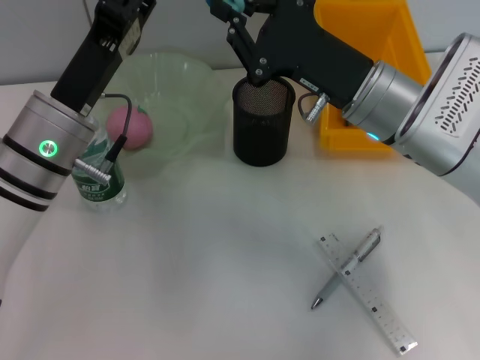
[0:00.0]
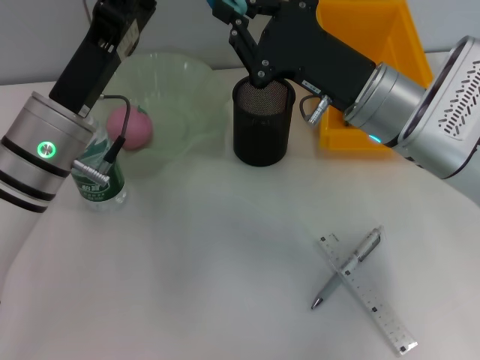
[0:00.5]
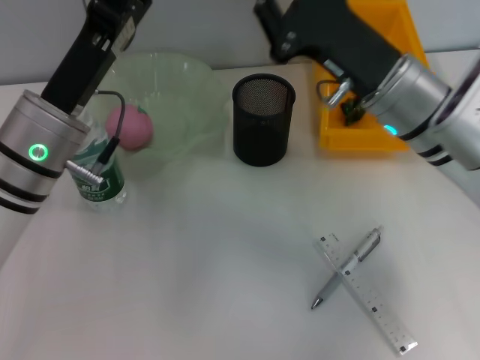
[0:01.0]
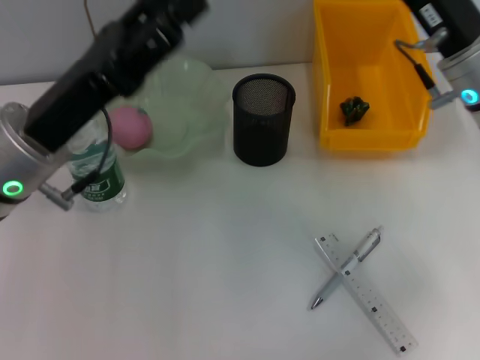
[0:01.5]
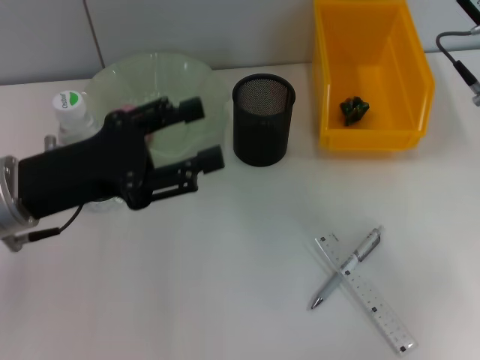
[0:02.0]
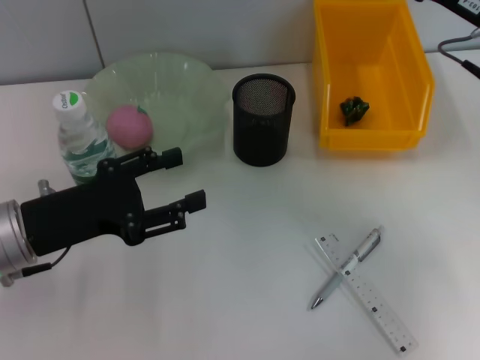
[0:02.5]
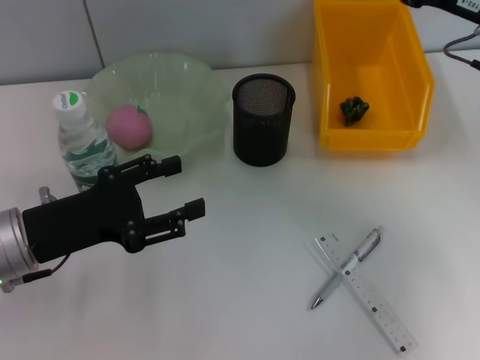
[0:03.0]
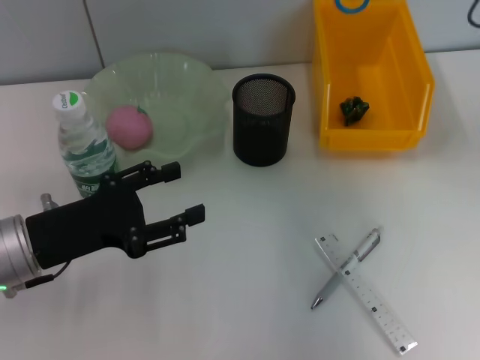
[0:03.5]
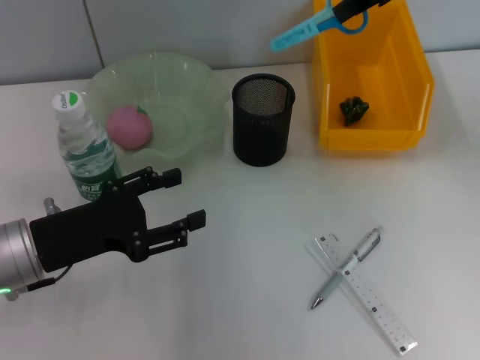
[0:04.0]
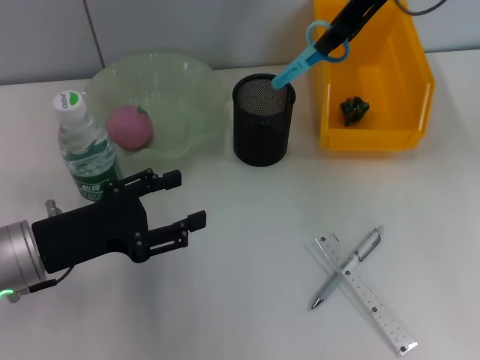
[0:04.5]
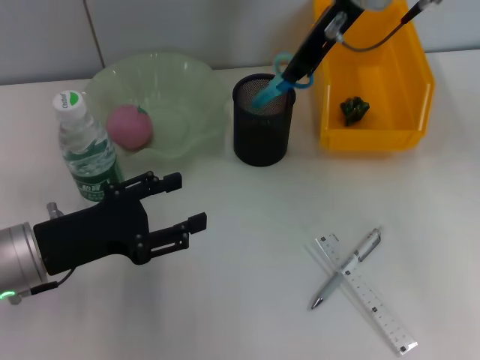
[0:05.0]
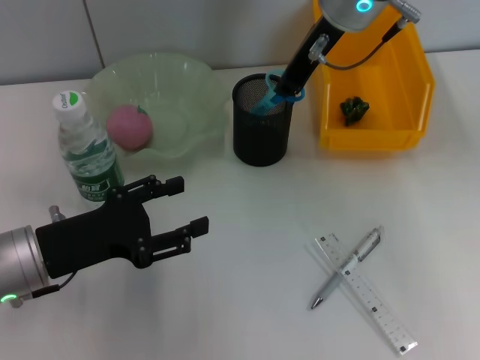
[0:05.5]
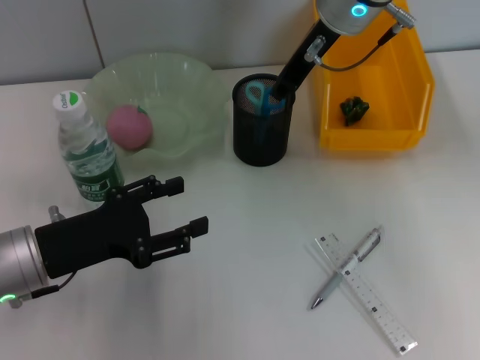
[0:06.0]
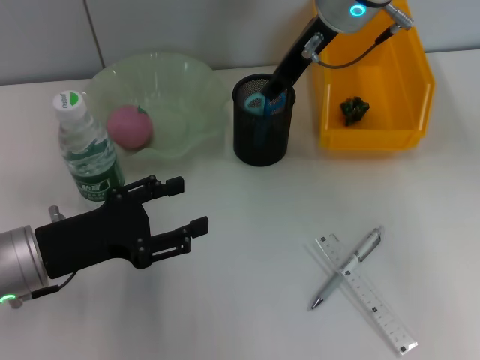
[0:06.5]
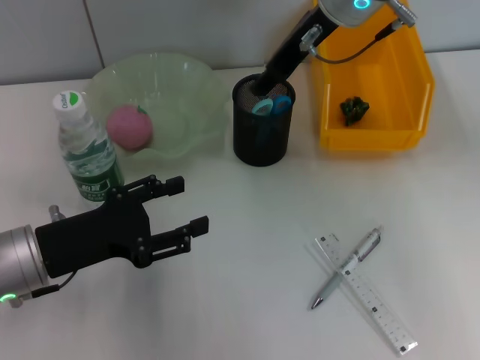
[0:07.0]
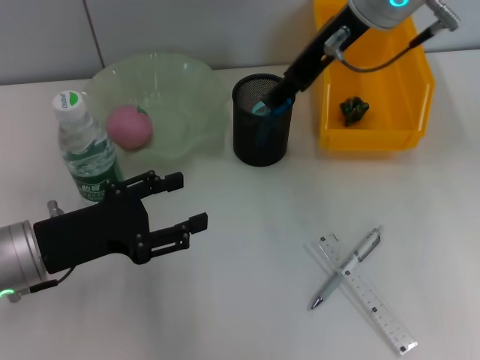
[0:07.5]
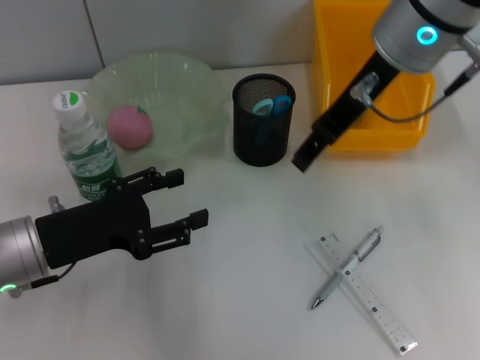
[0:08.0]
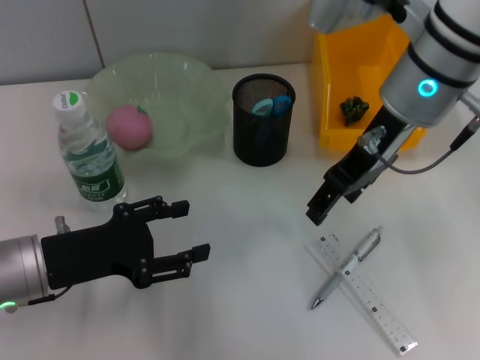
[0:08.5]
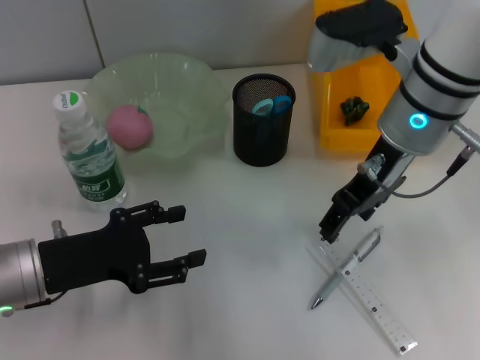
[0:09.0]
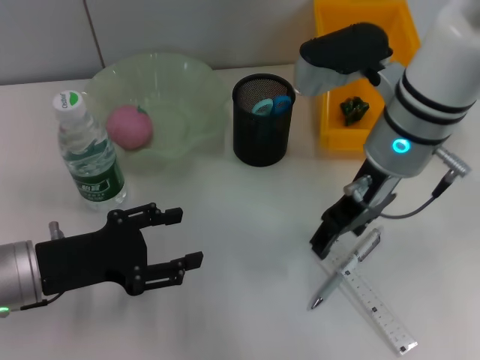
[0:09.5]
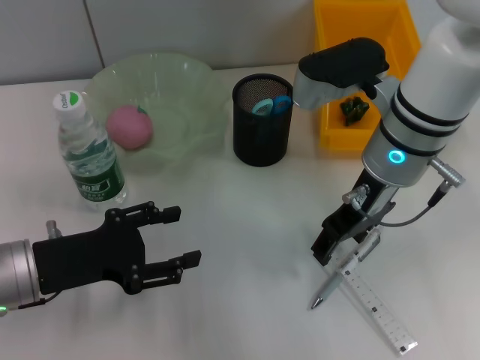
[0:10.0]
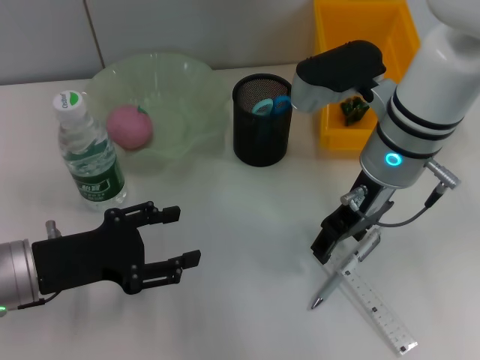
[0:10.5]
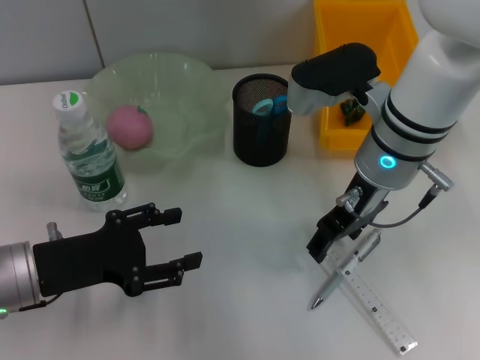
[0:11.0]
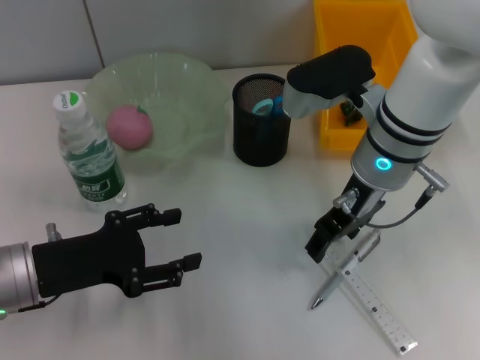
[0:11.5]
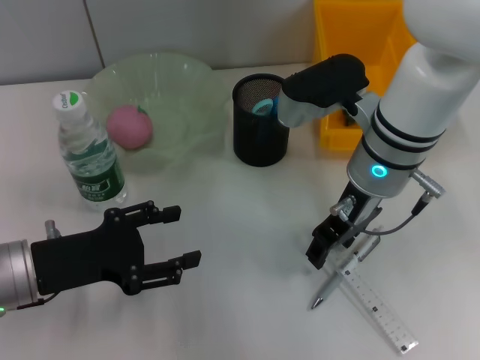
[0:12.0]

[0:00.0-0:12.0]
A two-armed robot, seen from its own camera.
Step, 0:02.0 to 0:06.5: Place the blue scissors into the pen holder with the right hand.
0:00.0 to 0:02.0: The left gripper goes approximately 5 cm to the left, and opens up, while the right gripper moves to the right, about 10 cm.
0:02.0 to 0:04.0: The left gripper heads downward, covering approximately 5 cm, while the right gripper goes about 15 cm upward and forward.
0:04.0 to 0:06.0: The right gripper goes some 15 cm to the left and downward.
0:06.0 to 0:08.0: The right gripper moves backward, roughly 10 cm, and opens.
0:08.0 to 0:10.0: The right gripper travels downward by about 10 cm.
0:10.0 to 0:12.0: The grippers stay close to where they were, moving slightly.

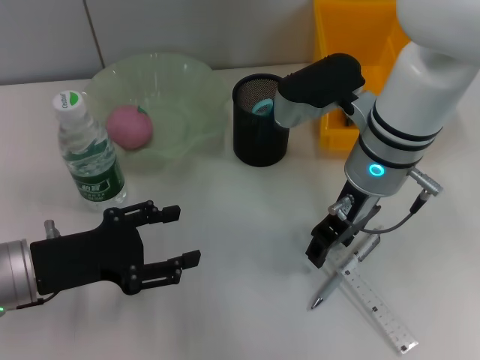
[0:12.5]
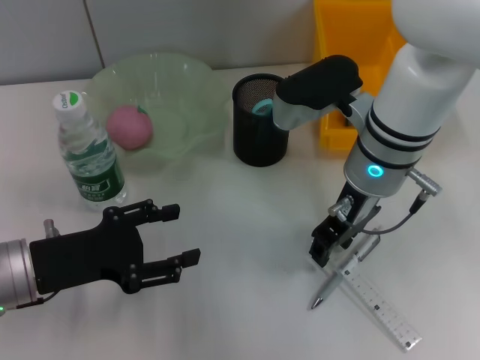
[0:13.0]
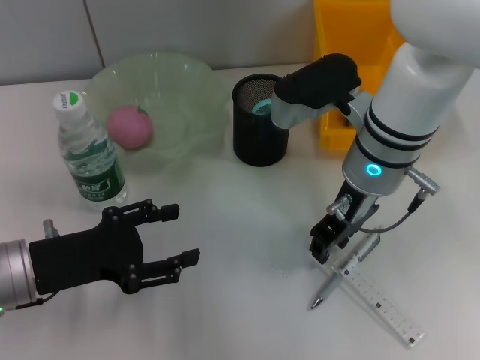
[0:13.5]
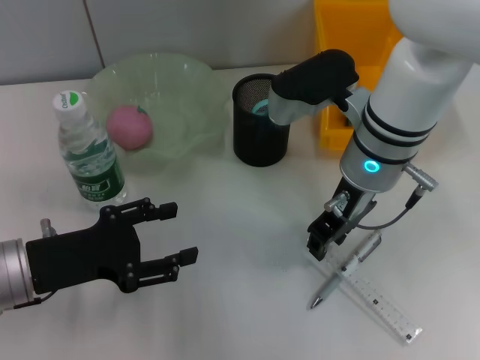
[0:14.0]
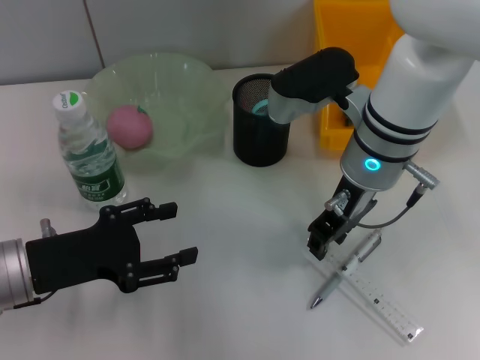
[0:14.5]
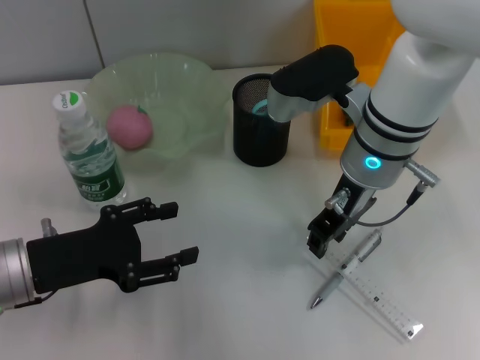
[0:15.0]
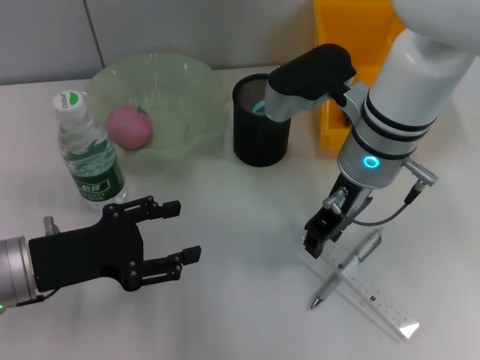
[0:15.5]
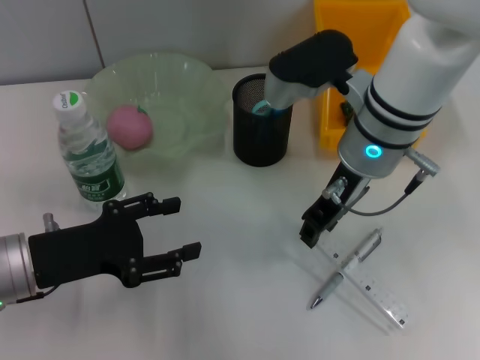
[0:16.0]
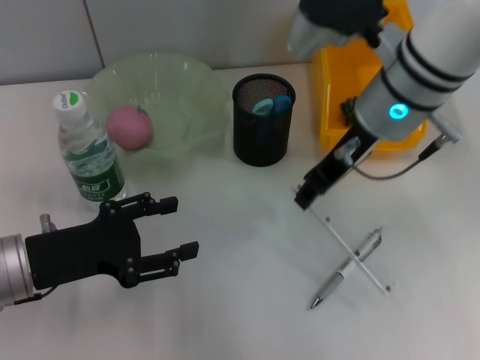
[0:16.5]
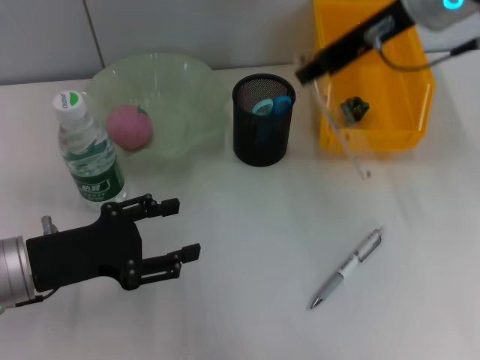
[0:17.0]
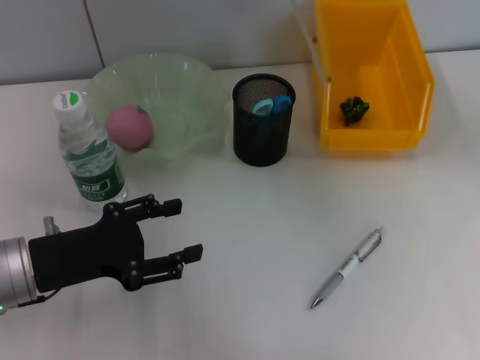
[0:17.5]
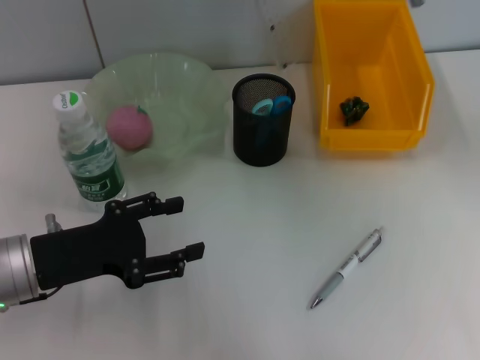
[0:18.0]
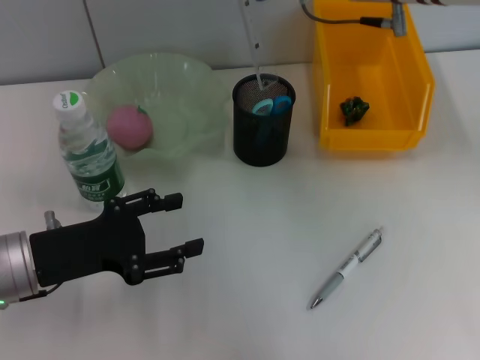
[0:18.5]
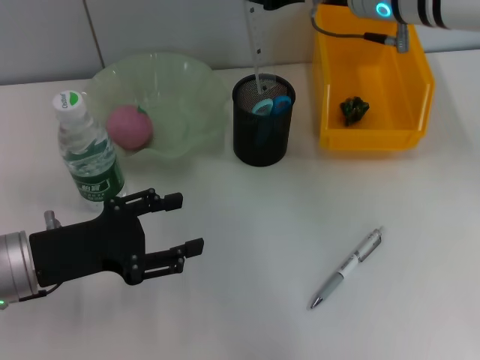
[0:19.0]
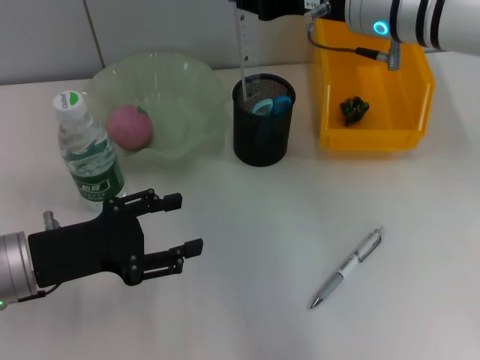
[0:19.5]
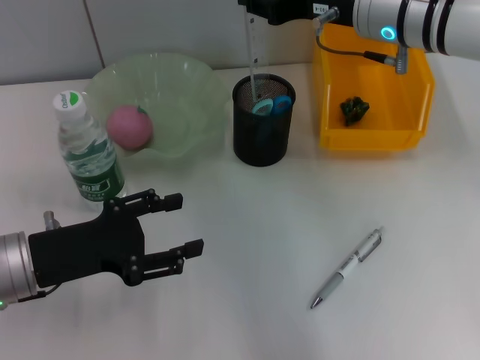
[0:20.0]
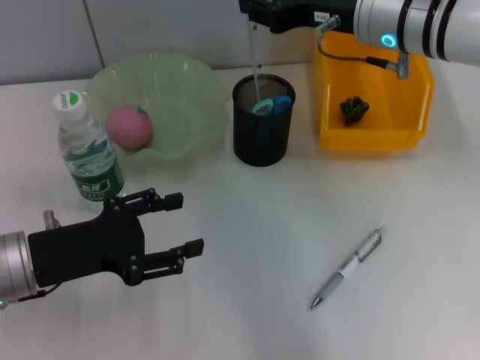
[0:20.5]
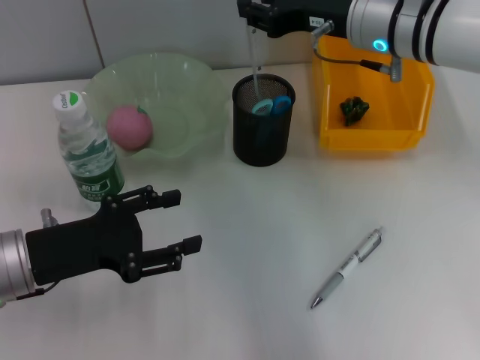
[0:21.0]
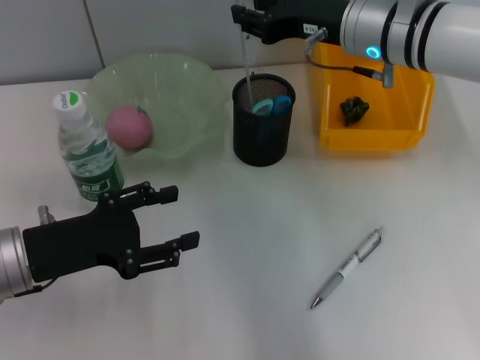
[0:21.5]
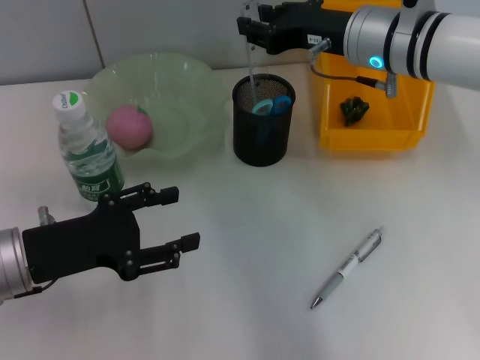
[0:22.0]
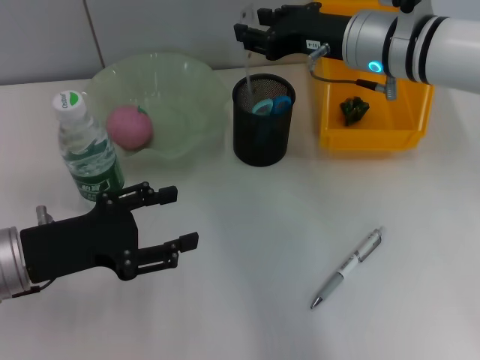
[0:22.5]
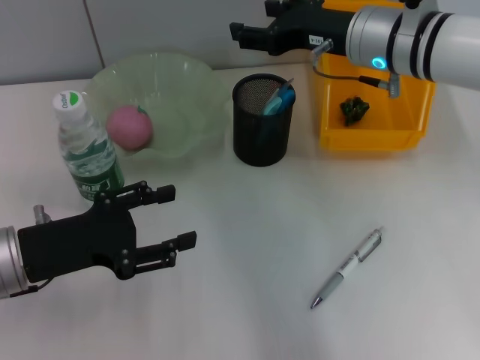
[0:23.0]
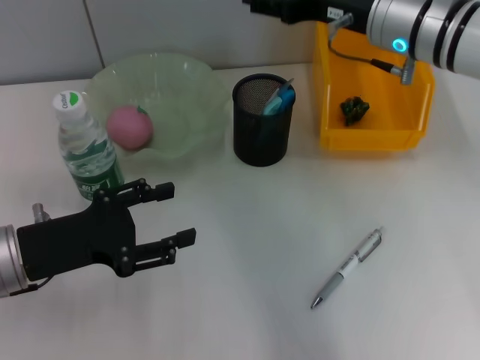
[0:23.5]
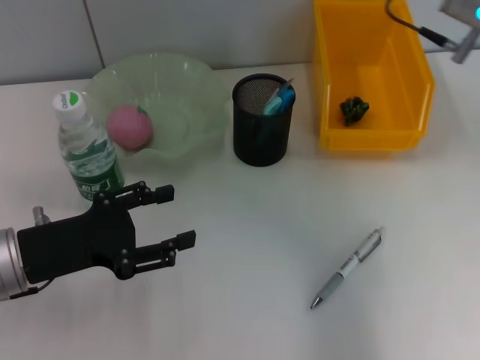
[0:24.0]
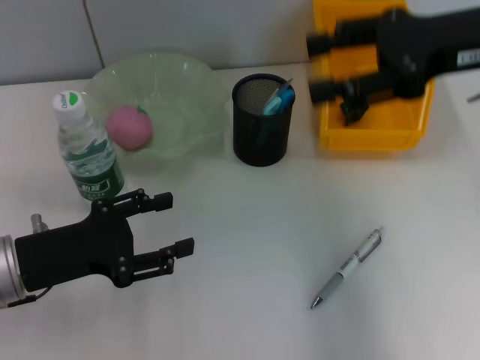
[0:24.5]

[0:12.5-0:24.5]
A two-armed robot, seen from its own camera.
Step, 0:12.5 to 0:15.0: Grab the ruler with the right hand.
Step, 0:15.5 to 0:23.5: Place the ruler into the pen holder with the right hand.
0:12.5 to 0:14.5: The two grippers keep their place.
0:14.5 to 0:16.5: The right gripper changes place by about 5 cm.
0:16.5 to 0:18.5: The right gripper is displaced upward by approximately 5 cm.
0:18.5 to 0:20.5: The right gripper shifts approximately 5 cm downward.
0:20.5 to 0:22.5: The grippers make only small movements.
0:22.5 to 0:24.5: The right gripper heads to the right, upward and backward, covering approximately 15 cm, and opens.

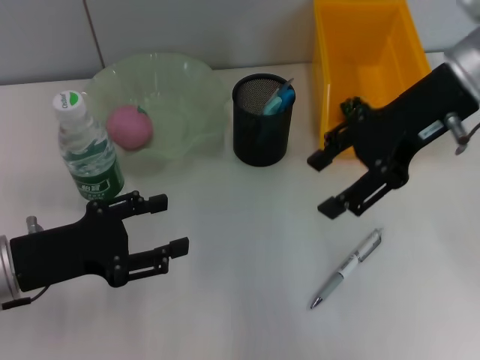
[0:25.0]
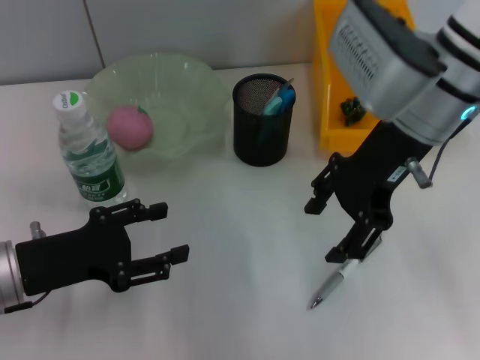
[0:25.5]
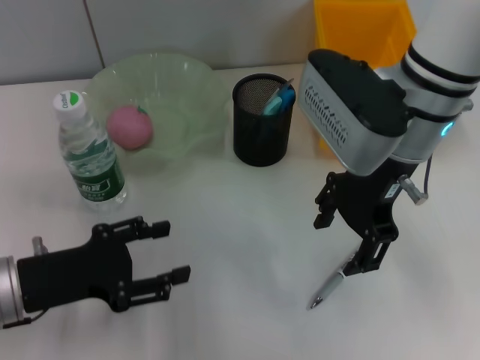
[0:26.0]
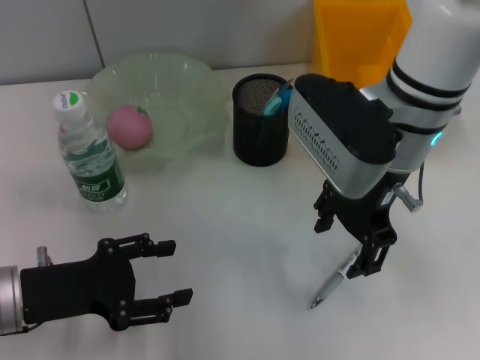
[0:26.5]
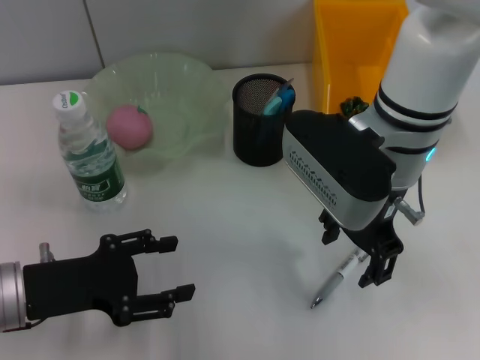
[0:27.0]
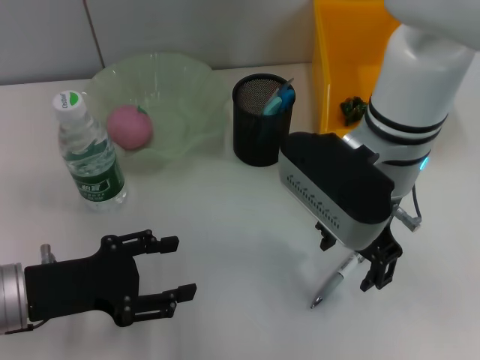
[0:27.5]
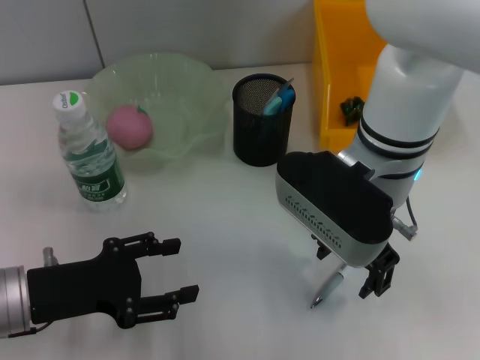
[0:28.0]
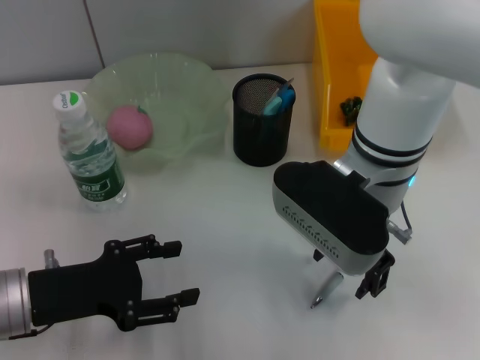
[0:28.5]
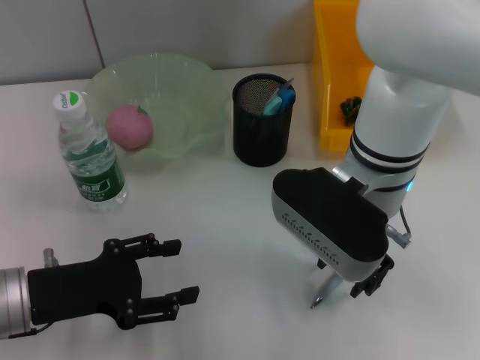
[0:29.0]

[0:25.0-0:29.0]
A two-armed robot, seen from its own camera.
0:25.0 to 0:27.0: The right gripper shifts some 10 cm to the left and downward.
0:27.0 to 0:29.0: The grippers stay close to where they were, moving slightly.
